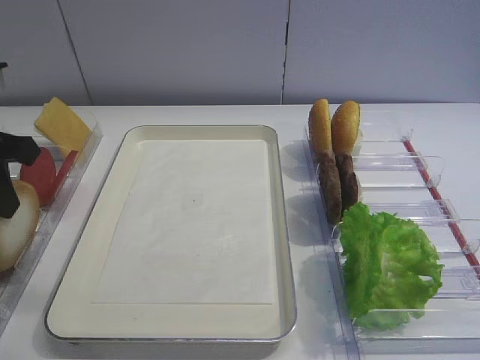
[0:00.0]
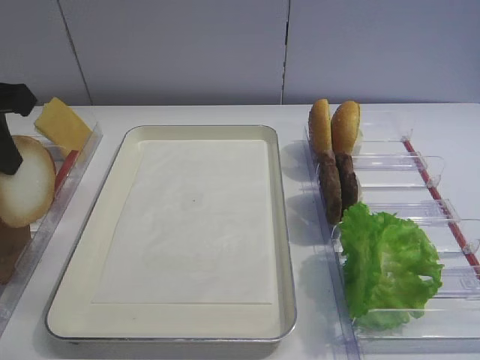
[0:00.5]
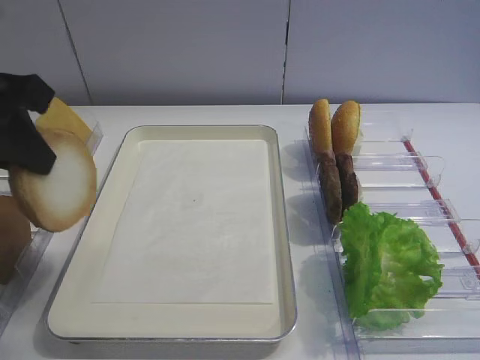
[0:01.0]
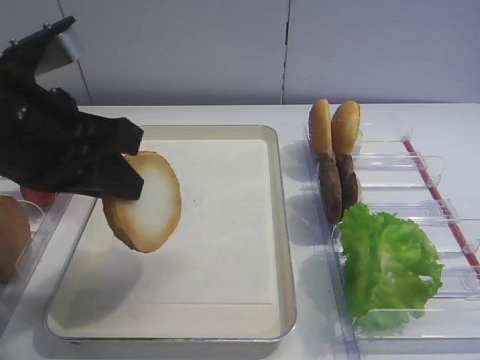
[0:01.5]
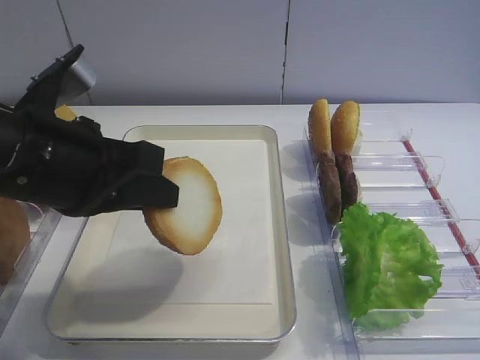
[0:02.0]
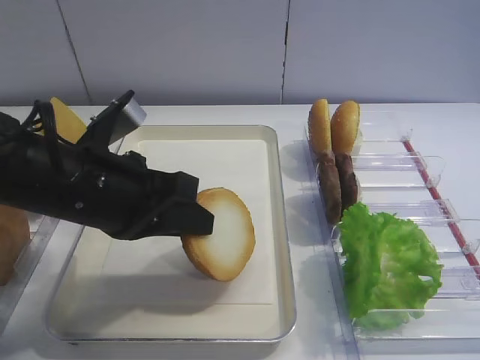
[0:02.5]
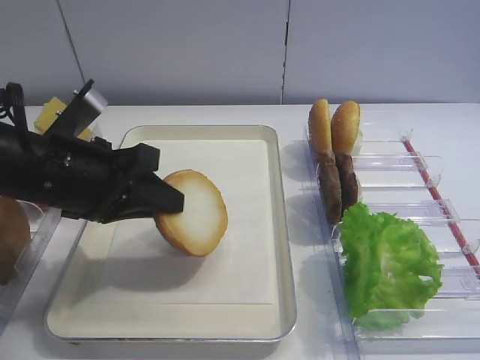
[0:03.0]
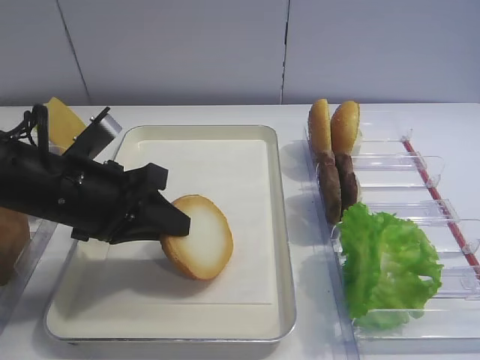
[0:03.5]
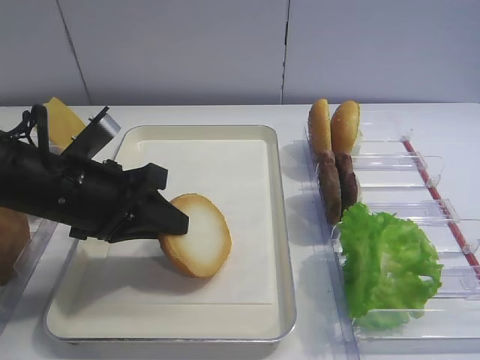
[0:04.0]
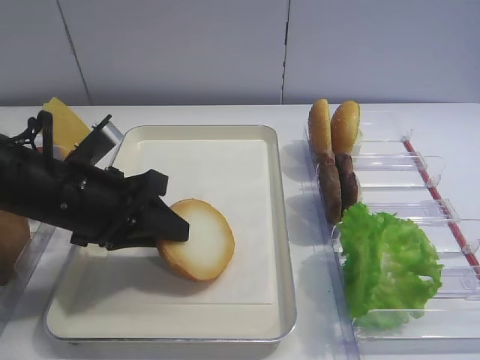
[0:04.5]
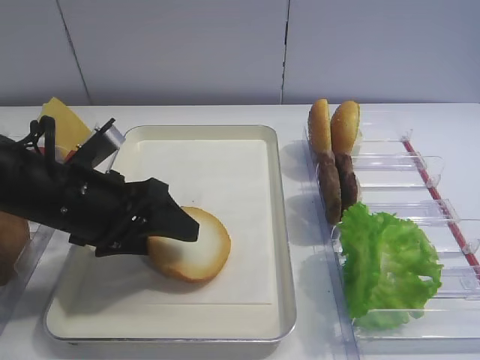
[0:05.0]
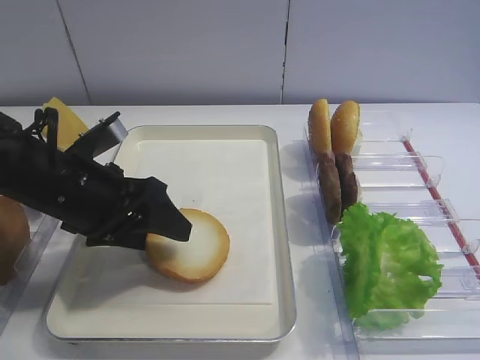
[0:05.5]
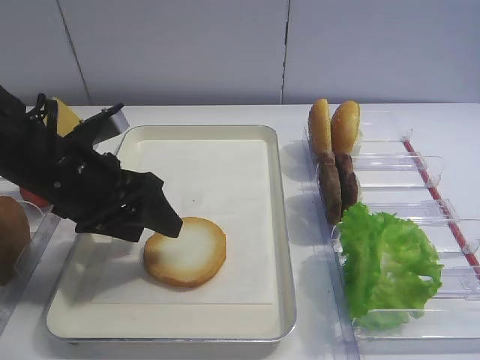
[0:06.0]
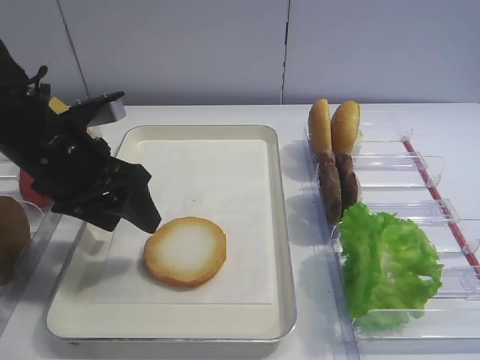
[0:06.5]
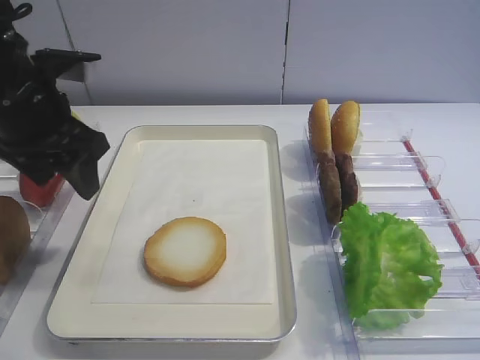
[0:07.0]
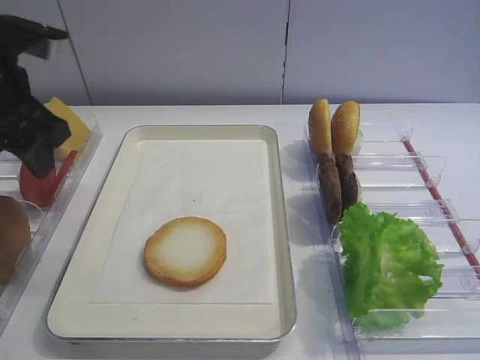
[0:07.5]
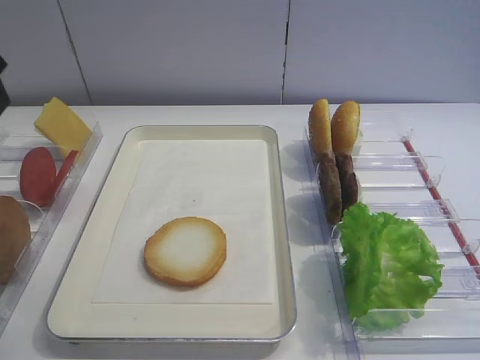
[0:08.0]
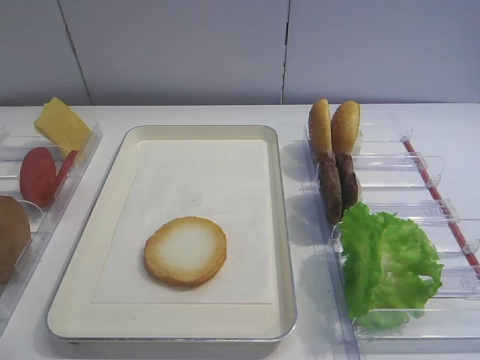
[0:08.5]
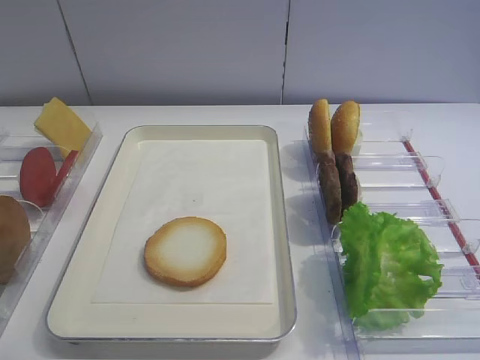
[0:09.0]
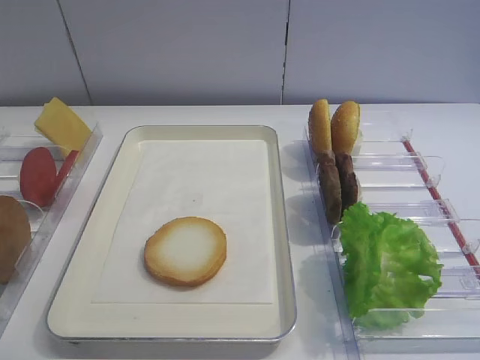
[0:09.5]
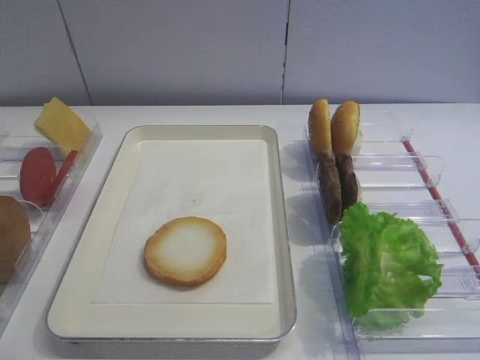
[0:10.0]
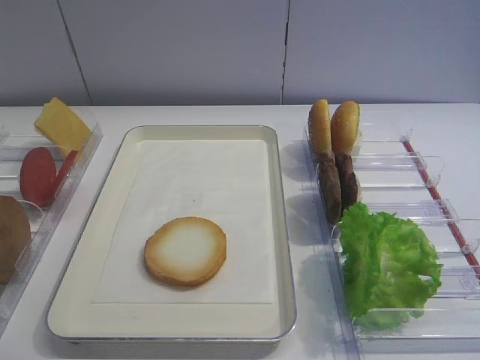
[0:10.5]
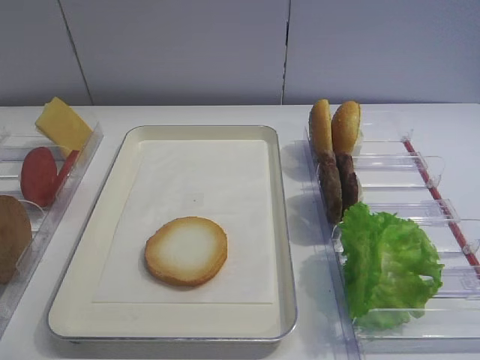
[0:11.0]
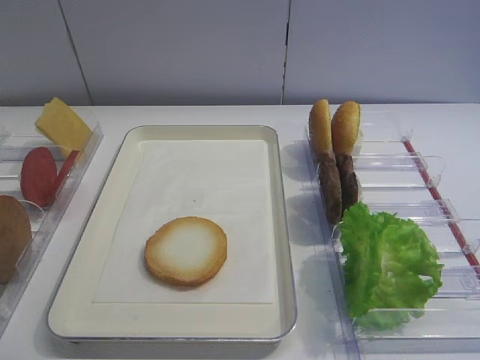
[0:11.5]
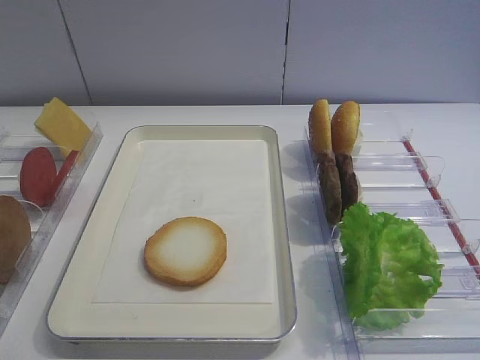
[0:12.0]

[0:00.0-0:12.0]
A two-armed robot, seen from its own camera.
Step, 0:00.5 to 0:06.5: Place the bread slice on the tray with the left gripper.
0:00.0 to 0:02.0: The left gripper shifts about 15 cm to the right and backward.
0:02.0 to 0:04.0: The left gripper travels downward by some 5 cm.
0:04.0 to 0:06.0: The left gripper opens its fingers.
0:06.0 to 0:08.0: The left gripper shifts about 20 cm upward and to the left.

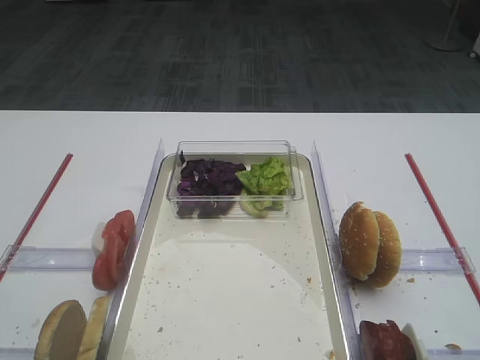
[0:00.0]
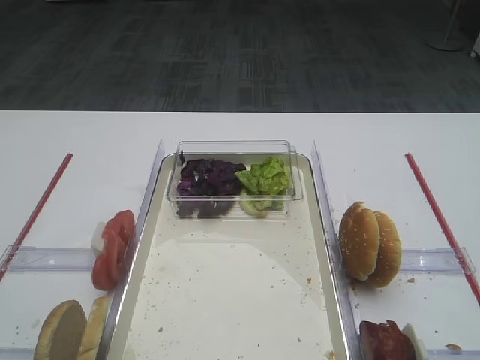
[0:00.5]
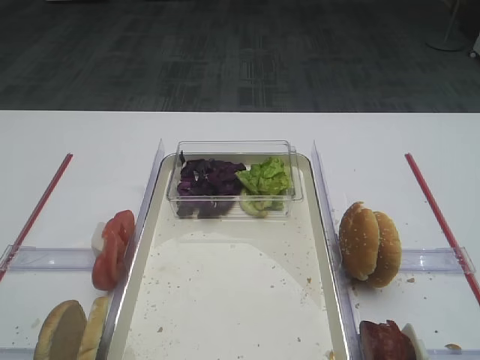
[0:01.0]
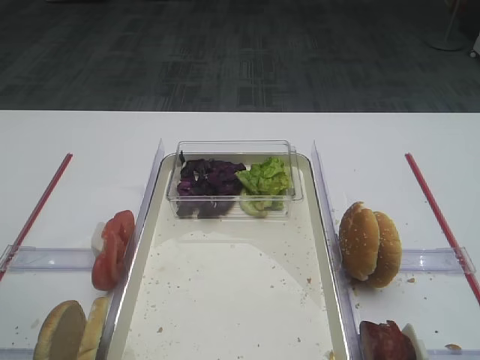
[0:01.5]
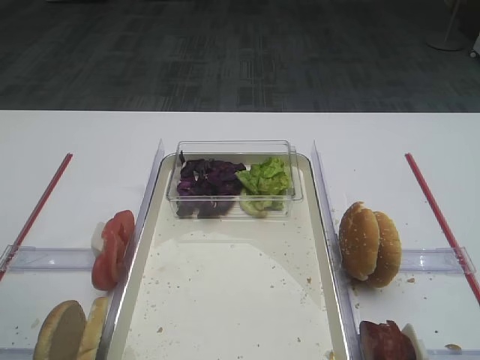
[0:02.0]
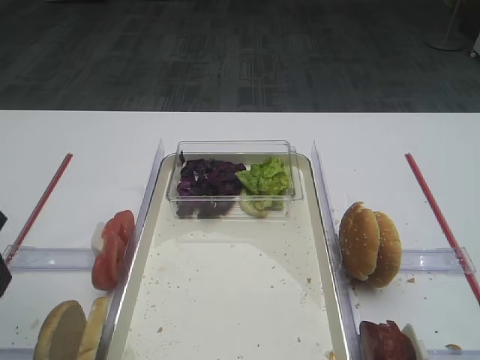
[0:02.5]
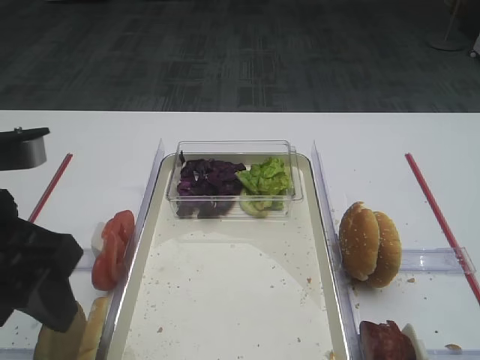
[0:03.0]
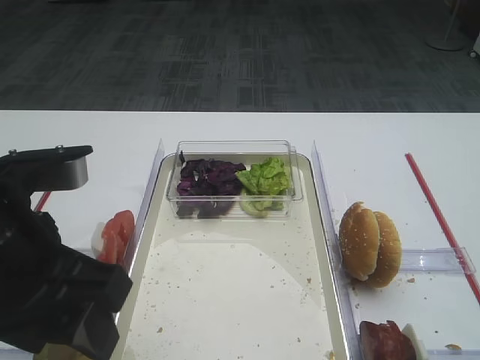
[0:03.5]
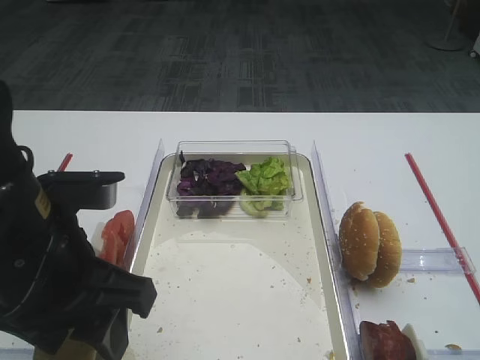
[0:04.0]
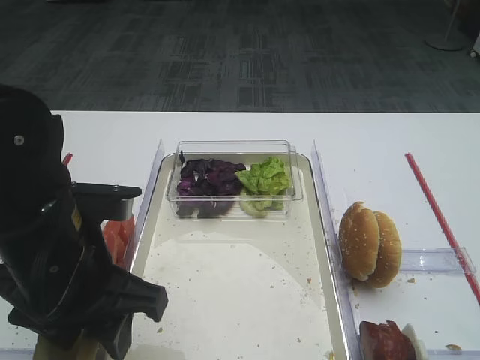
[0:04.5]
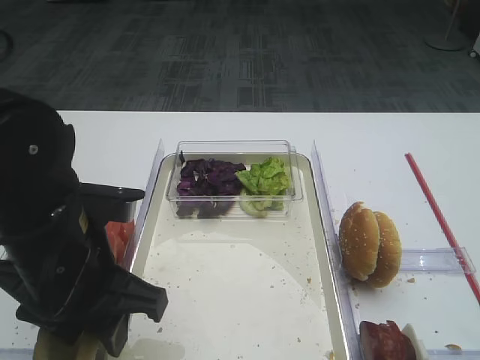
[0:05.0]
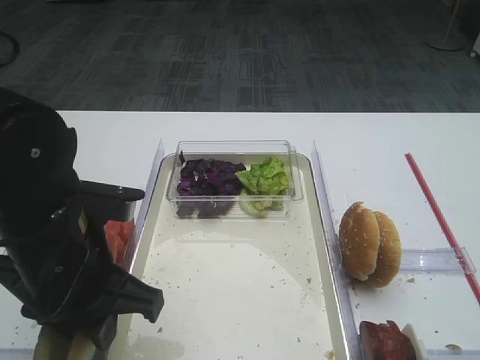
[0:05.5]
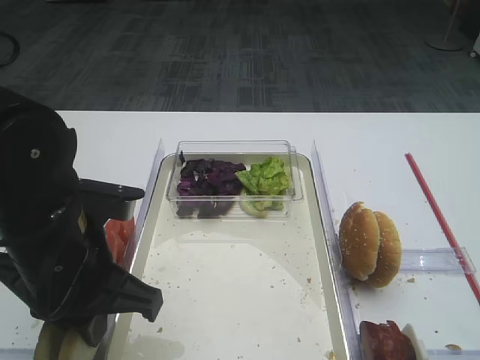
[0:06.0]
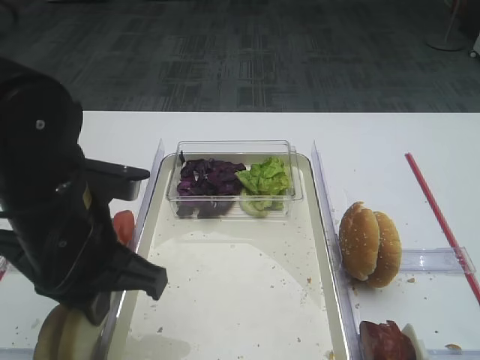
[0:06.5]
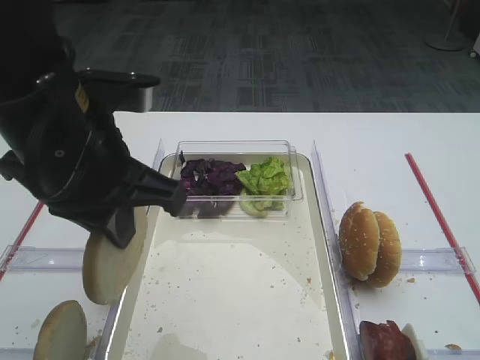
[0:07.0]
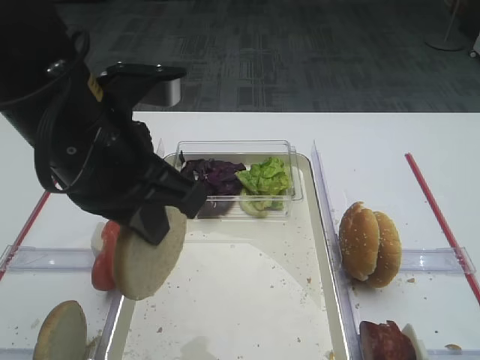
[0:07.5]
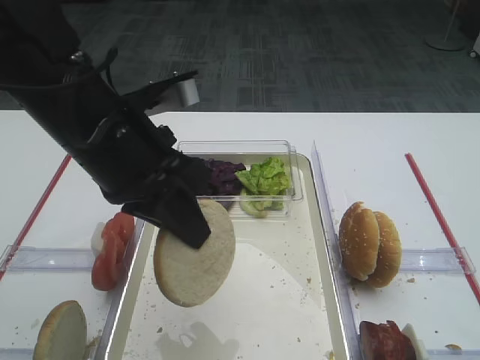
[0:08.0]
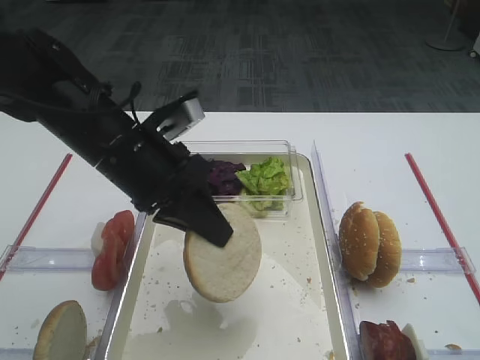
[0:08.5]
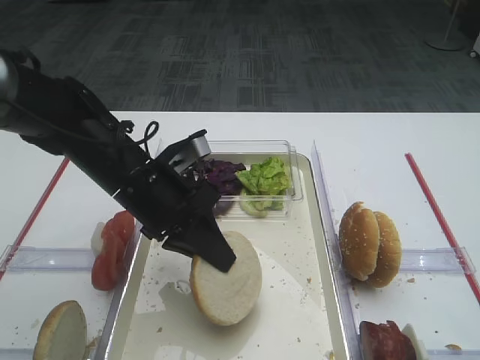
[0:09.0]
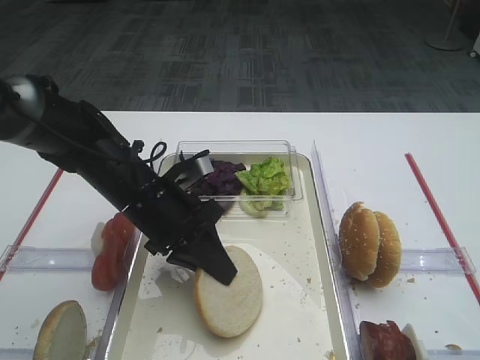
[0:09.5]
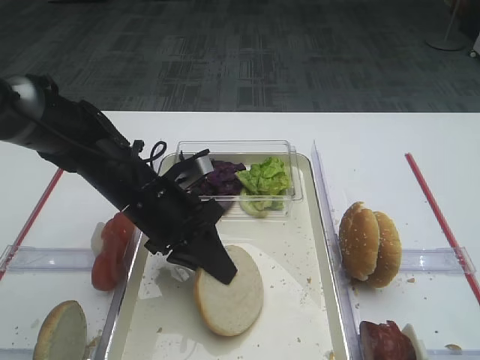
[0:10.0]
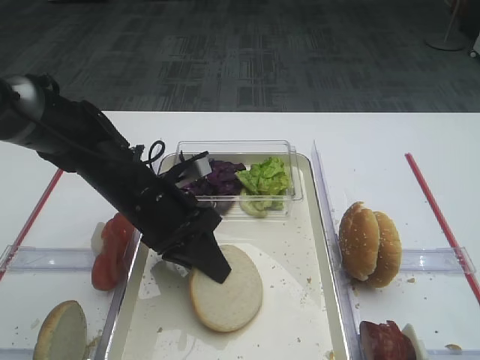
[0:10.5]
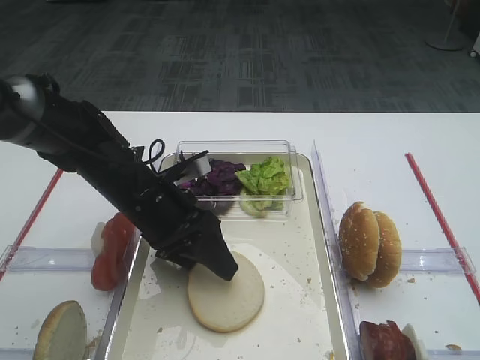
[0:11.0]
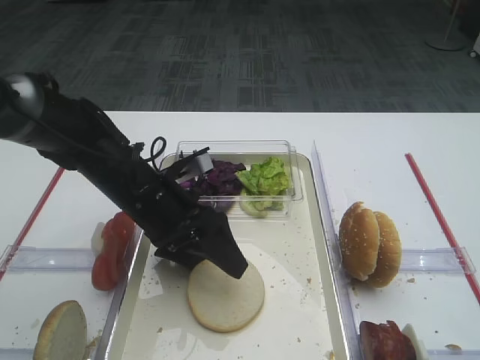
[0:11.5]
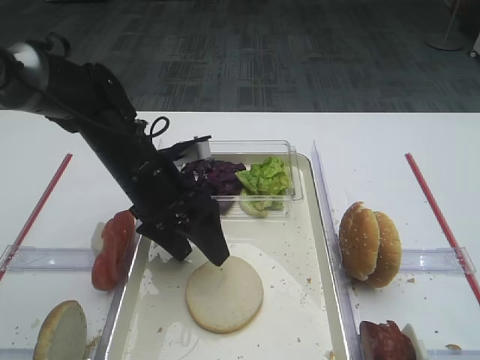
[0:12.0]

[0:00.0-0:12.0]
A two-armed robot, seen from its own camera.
Step, 0:00.0 to 0:07.0: Pick up the bread slice with the left gripper.
0:02.0 to 0:04.0: The left gripper moves to the right, roughly 15 cm.
0:04.0 to 0:06.0: The left gripper shifts by some 5 cm, and closes its fingers.
0:06.0 to 0:08.0: The left gripper heads upward, covering about 5 cm.
0:08.0 to 0:10.0: The left gripper shifts roughly 15 cm downward and forward.
0:10.0 to 0:12.0: The left gripper opens.

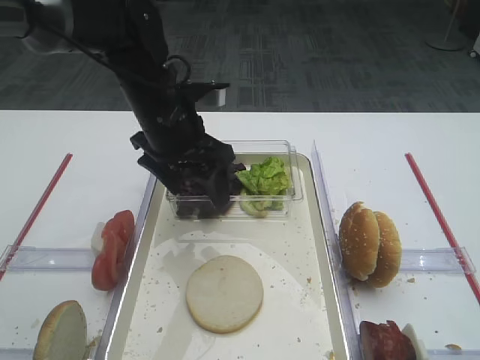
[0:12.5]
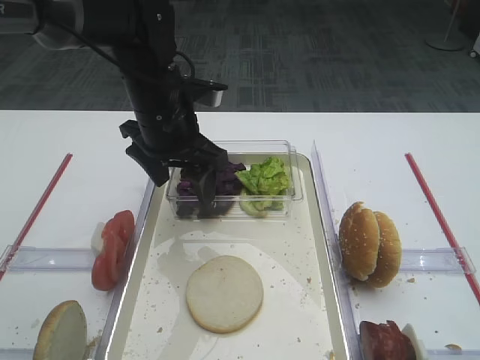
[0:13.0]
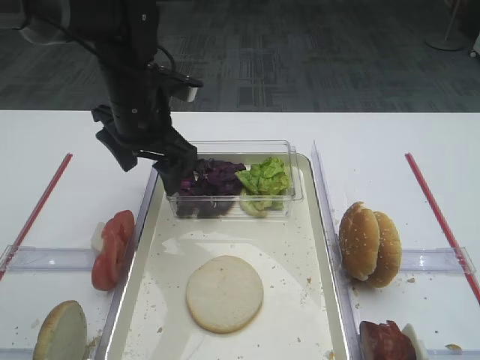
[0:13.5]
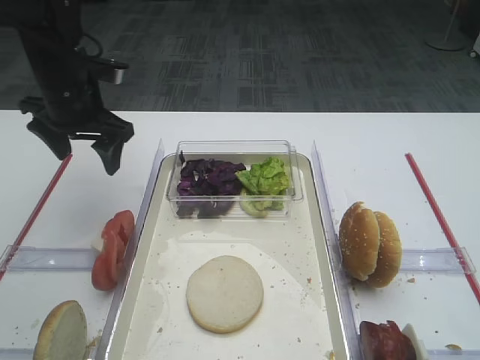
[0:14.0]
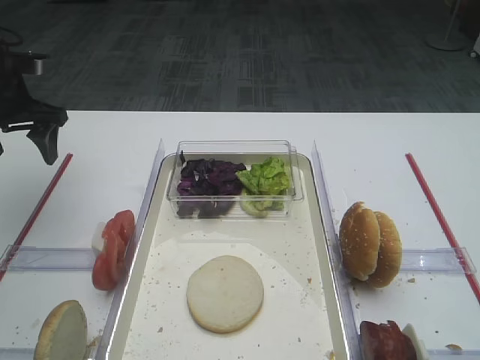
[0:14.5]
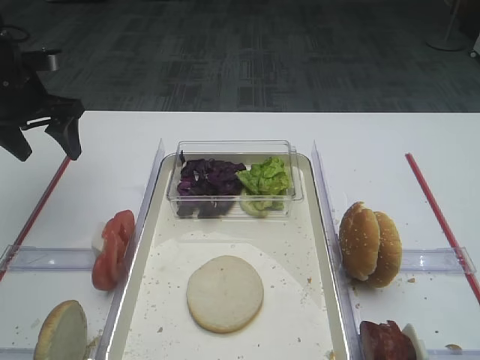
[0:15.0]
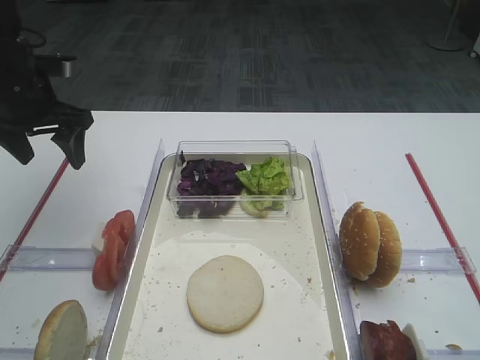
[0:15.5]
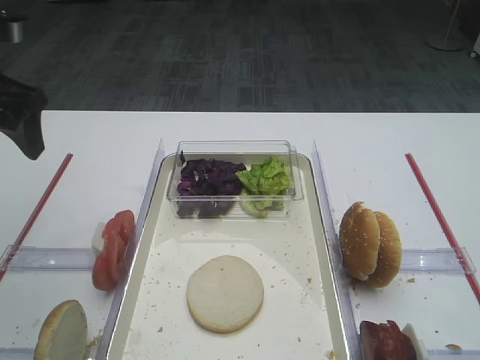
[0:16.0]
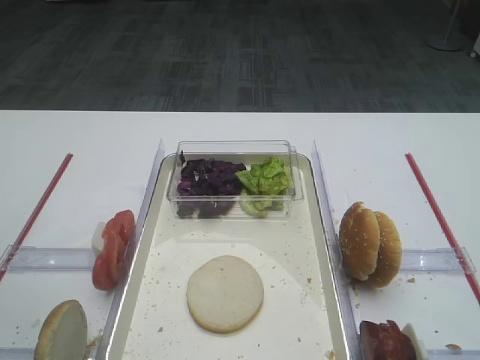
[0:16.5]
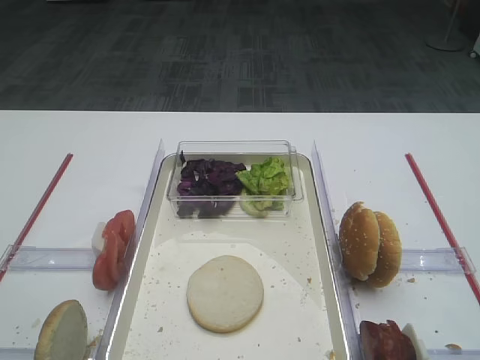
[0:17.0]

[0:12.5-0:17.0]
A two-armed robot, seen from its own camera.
0:12.5 to 0:14.5: The left gripper is displaced to the left by approximately 20 cm.
0:14.5 to 0:17.0: The left gripper moves backward, some 35 cm.
